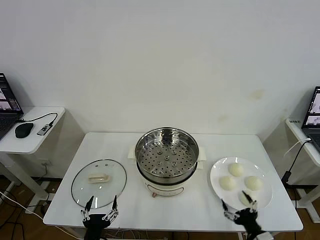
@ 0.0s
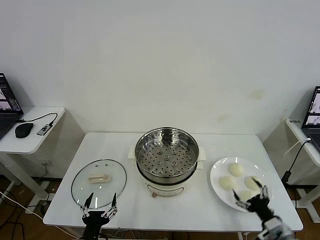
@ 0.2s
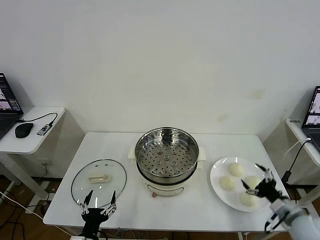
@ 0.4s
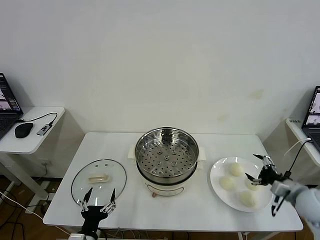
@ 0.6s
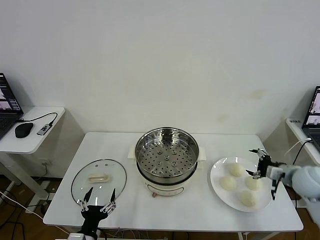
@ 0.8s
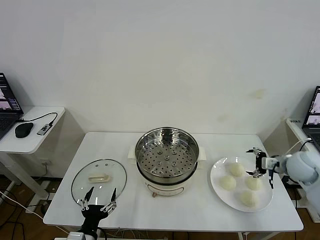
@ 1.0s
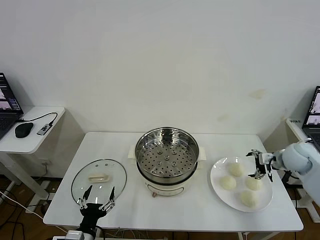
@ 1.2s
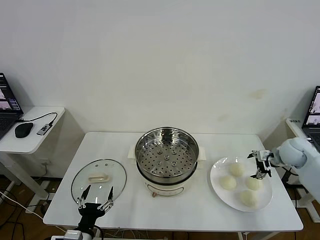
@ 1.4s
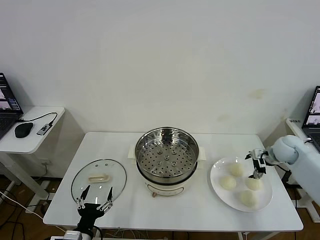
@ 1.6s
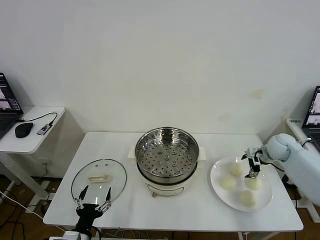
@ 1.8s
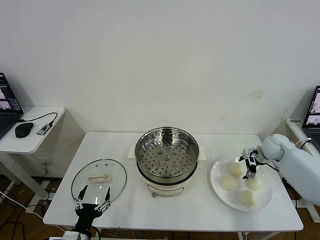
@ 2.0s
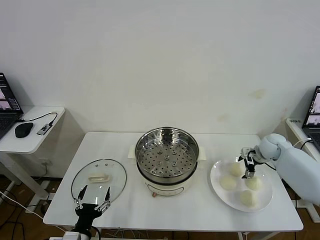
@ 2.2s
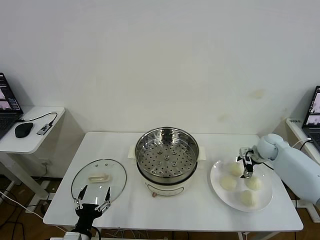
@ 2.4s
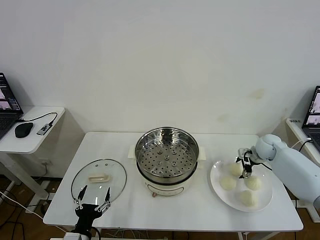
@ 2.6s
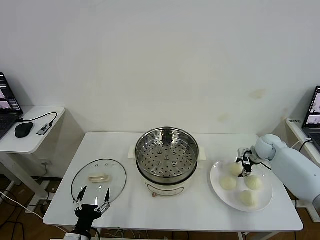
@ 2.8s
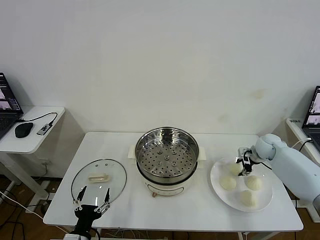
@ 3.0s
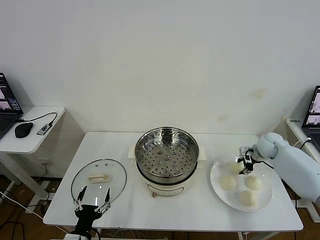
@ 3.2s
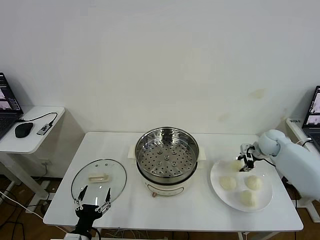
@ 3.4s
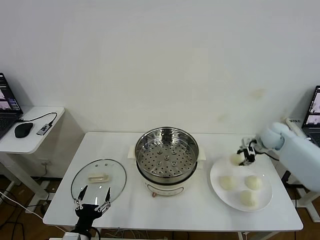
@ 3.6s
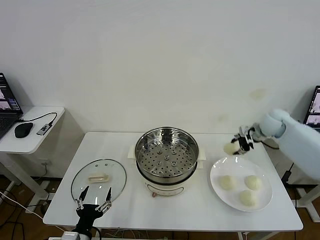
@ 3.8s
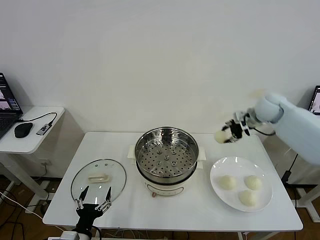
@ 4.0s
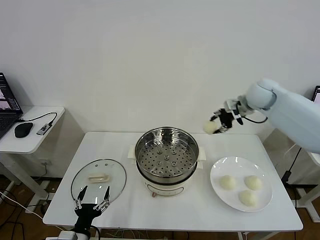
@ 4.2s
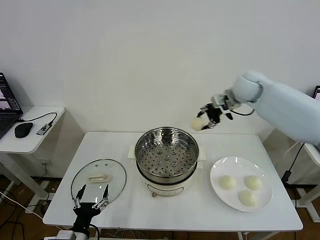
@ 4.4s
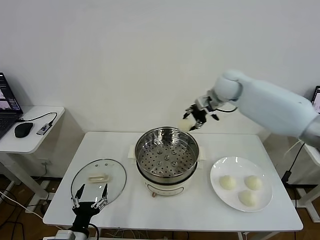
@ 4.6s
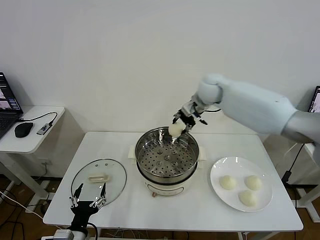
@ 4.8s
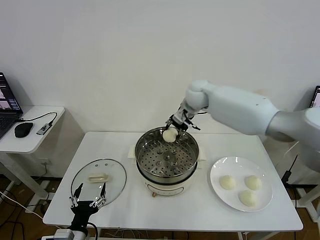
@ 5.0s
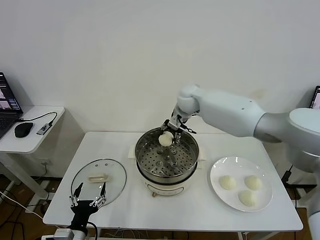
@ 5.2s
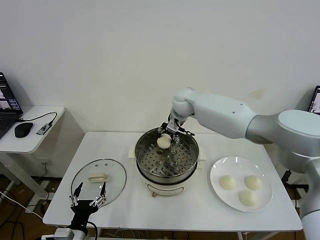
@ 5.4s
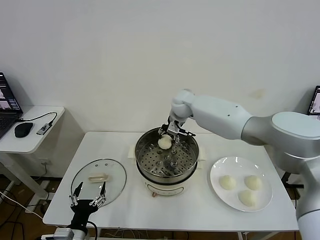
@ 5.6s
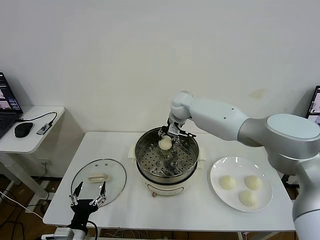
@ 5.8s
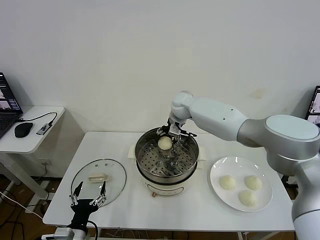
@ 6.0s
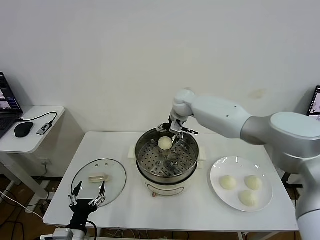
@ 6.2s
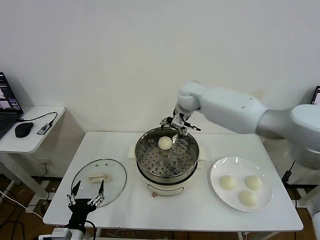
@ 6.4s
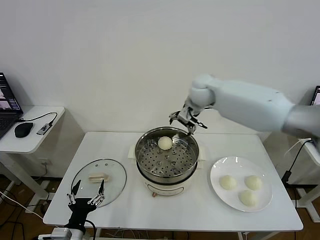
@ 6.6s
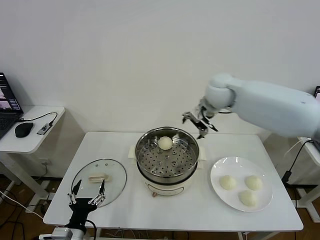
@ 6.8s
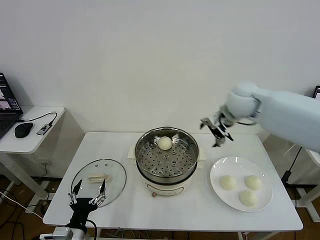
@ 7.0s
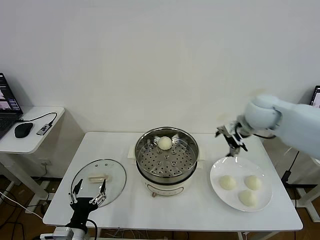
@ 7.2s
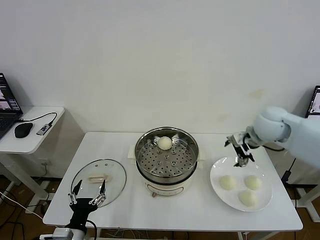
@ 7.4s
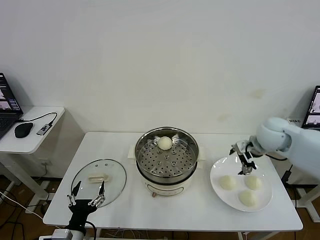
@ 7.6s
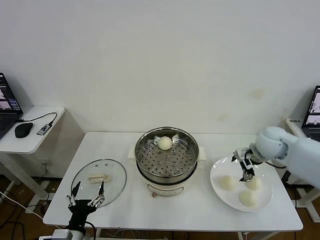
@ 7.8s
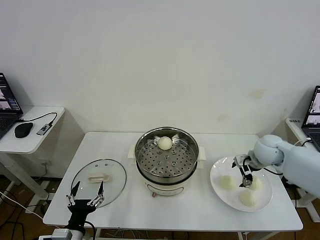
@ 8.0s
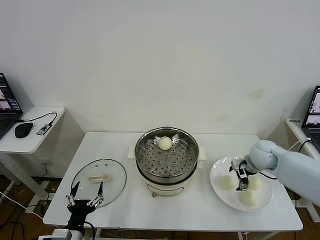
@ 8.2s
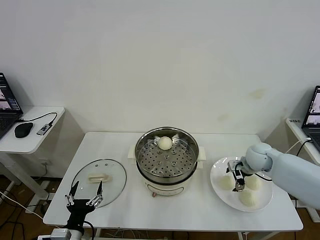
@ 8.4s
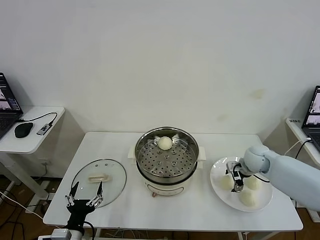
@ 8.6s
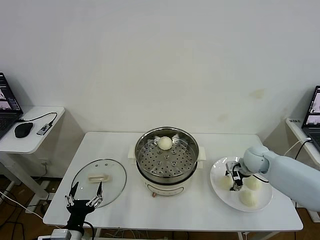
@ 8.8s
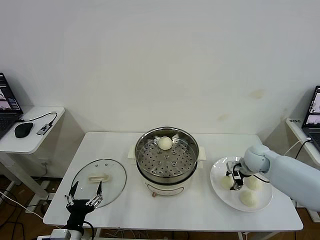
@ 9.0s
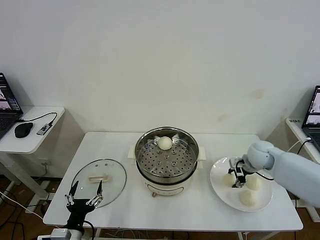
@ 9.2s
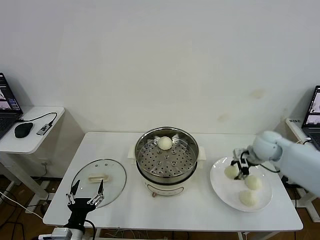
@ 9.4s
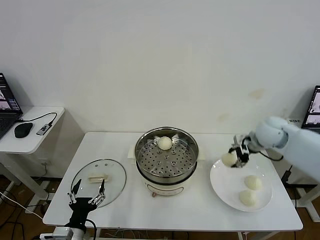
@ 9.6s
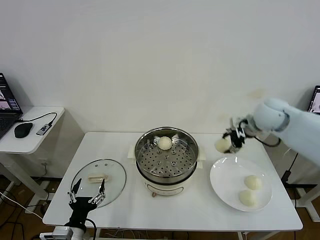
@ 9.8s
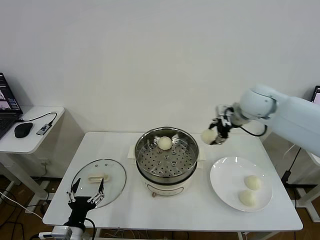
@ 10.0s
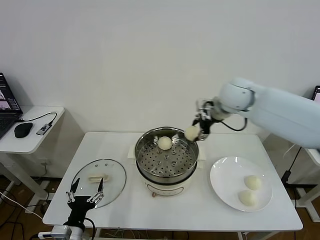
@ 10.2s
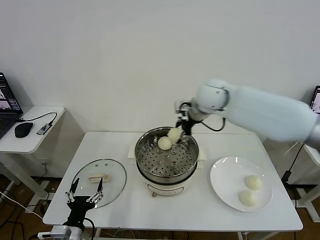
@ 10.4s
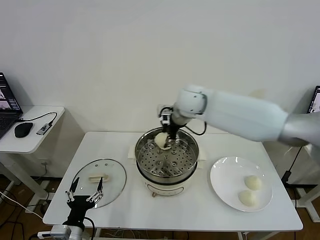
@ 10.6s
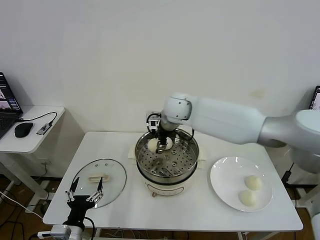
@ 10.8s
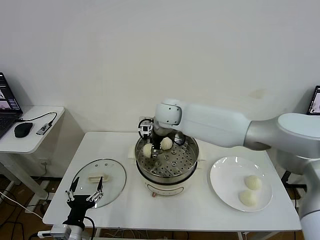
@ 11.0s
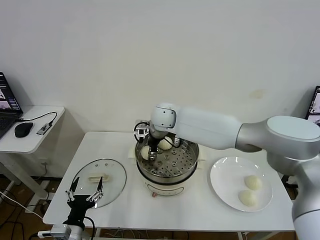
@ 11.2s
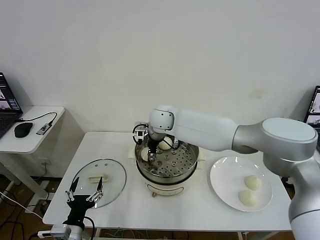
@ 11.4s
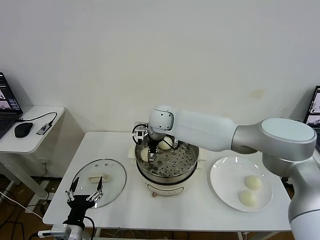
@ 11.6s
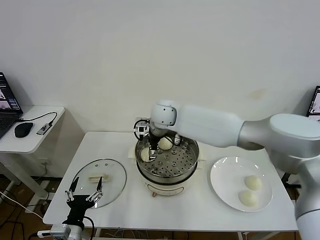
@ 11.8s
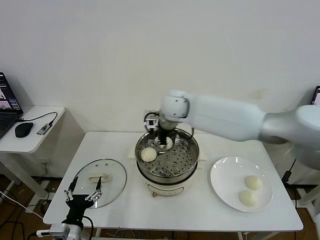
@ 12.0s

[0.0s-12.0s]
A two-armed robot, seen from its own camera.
Task of the whole recording: take steamed baozi put them in steamer then cover it.
Step, 0.0s to 3.2s: Grasp the baozi in the plate with right gripper.
Step, 3.4s to 6.0s: Place the baozi on the steamer with right gripper.
Step, 6.2s to 9.0s: Grasp the baozi in the plate with right gripper.
Step, 9.2s to 11.6s: Place the baozi on the steamer with right gripper.
1.6s to 3.0s: The right gripper ends up some 5 cm from where it was, and closes its fingers.
3.0s to 4.4s: The right gripper shifts some 30 cm upward and to the left.
4.4s to 6.0s: The right gripper is displaced to the left and downward by some 20 cm, and opens up.
6.0s to 7.6s: The right gripper moves to the right and backward, roughly 30 cm.
7.6s to 9.0s: The right gripper goes about 10 cm downward, and closes.
9.0s to 10.4s: The right gripper shifts roughly 30 cm to the left and upward.
10.4s to 12.0s: The right gripper is displaced to the left by about 5 cm, and opens its fingers.

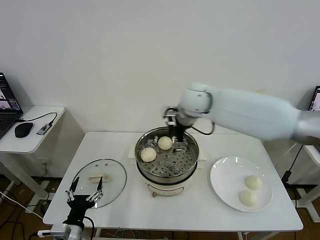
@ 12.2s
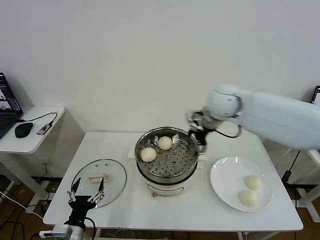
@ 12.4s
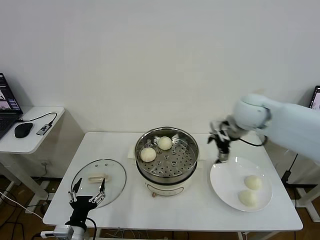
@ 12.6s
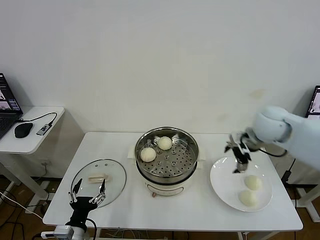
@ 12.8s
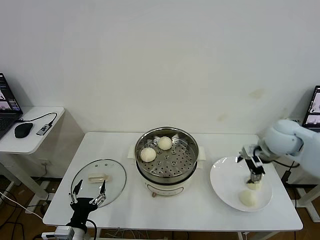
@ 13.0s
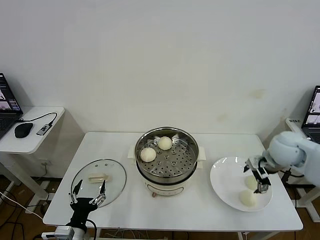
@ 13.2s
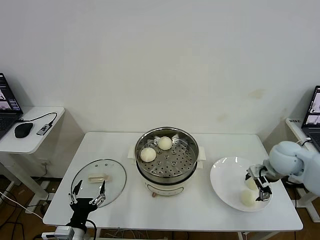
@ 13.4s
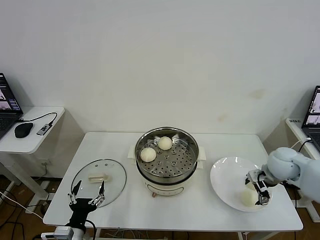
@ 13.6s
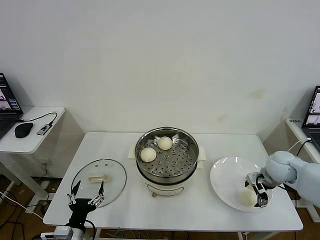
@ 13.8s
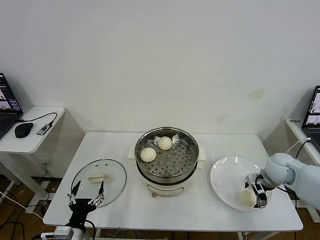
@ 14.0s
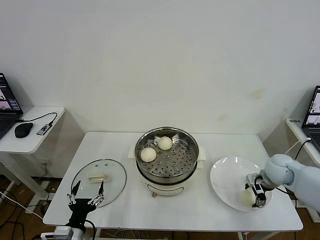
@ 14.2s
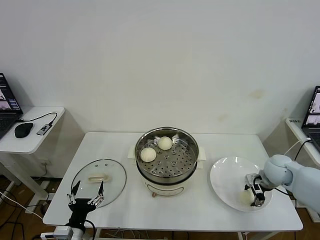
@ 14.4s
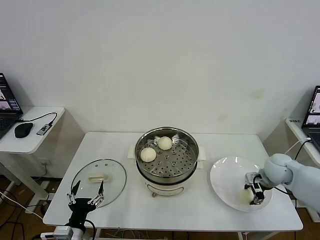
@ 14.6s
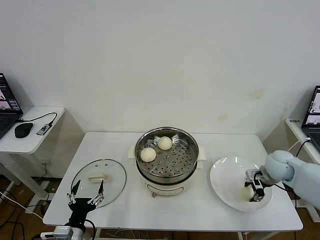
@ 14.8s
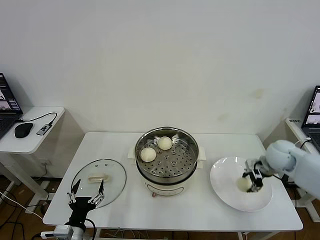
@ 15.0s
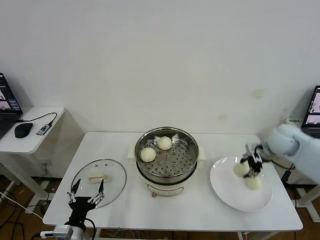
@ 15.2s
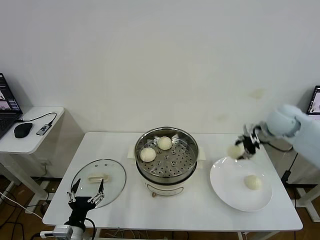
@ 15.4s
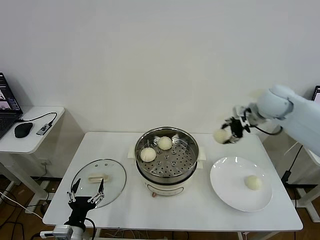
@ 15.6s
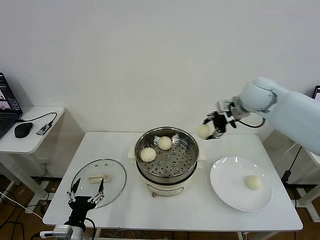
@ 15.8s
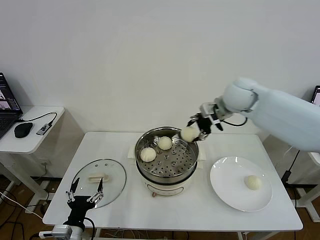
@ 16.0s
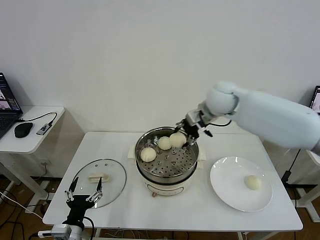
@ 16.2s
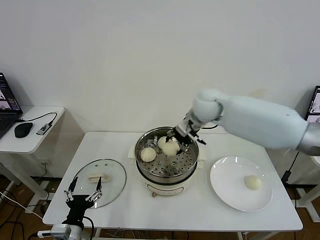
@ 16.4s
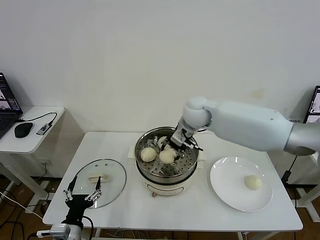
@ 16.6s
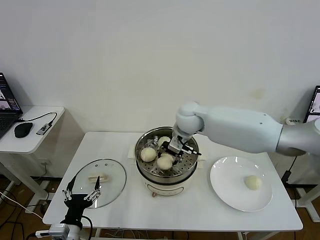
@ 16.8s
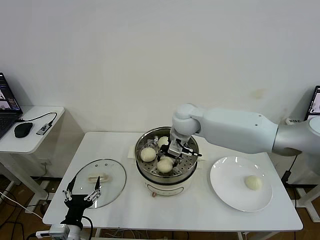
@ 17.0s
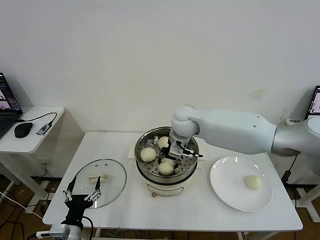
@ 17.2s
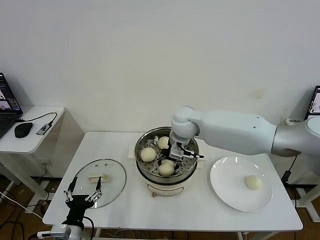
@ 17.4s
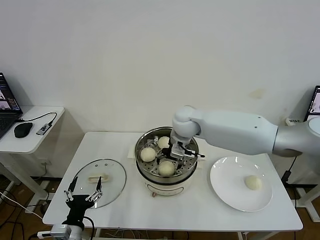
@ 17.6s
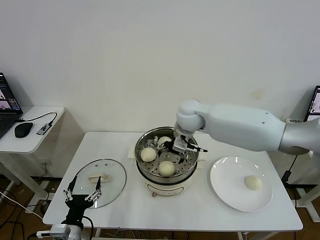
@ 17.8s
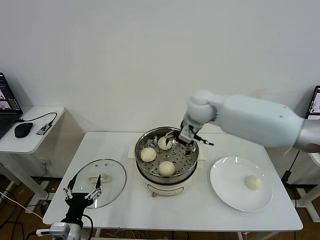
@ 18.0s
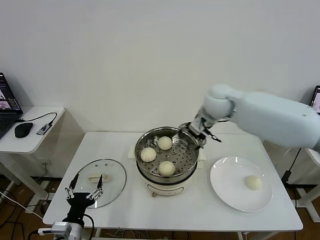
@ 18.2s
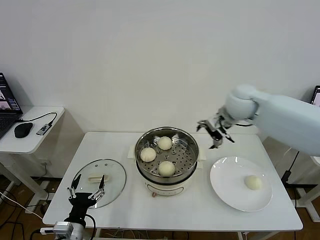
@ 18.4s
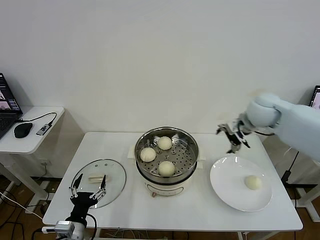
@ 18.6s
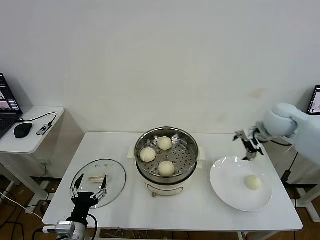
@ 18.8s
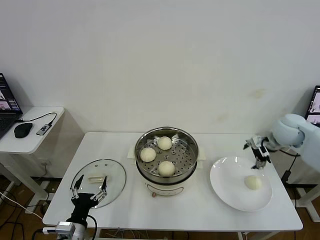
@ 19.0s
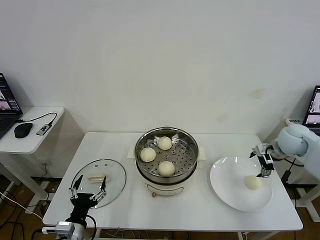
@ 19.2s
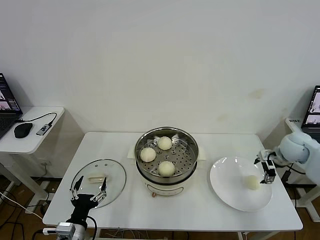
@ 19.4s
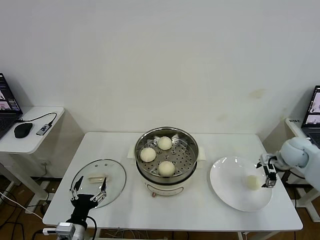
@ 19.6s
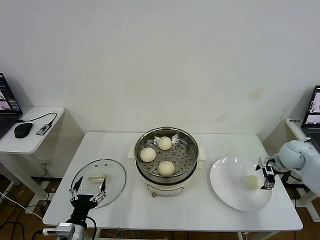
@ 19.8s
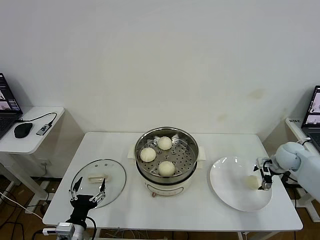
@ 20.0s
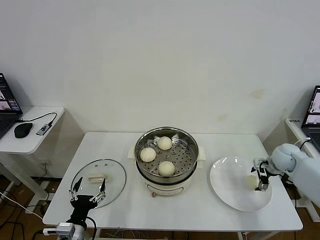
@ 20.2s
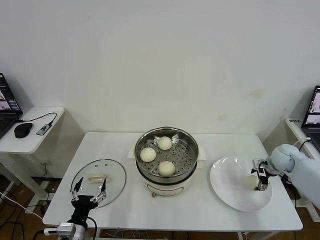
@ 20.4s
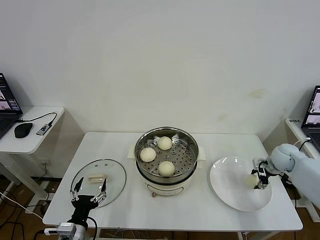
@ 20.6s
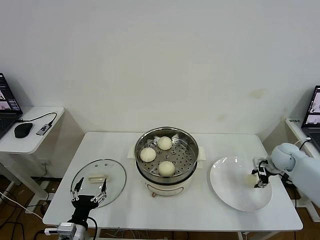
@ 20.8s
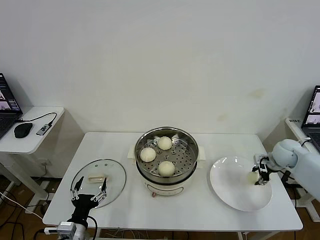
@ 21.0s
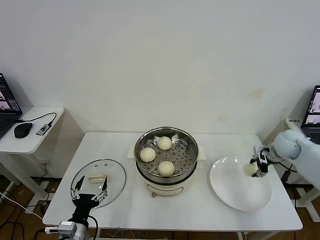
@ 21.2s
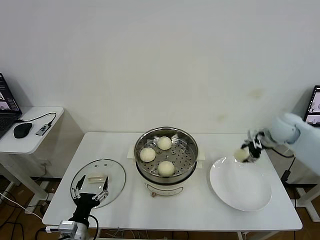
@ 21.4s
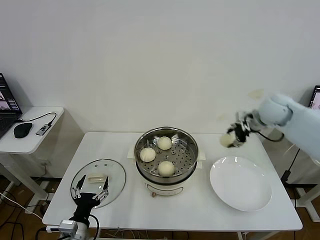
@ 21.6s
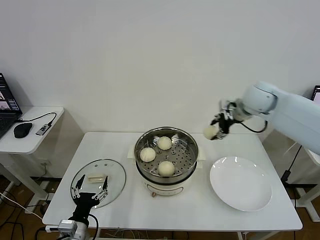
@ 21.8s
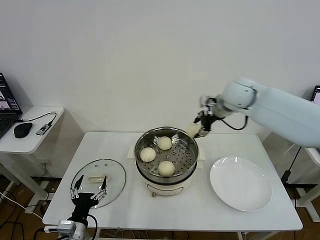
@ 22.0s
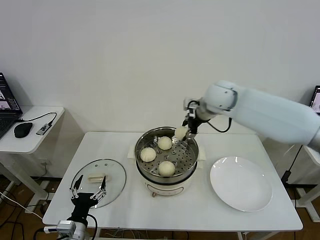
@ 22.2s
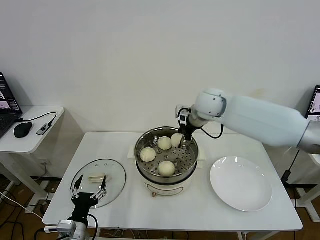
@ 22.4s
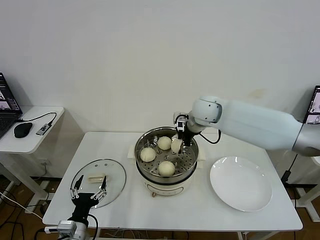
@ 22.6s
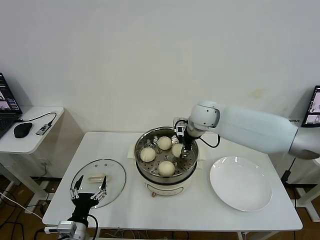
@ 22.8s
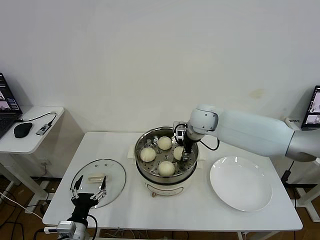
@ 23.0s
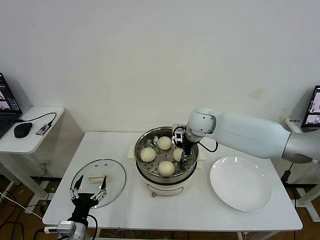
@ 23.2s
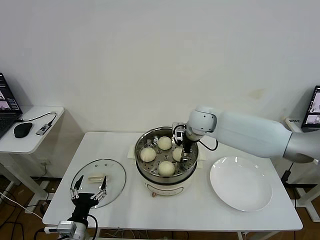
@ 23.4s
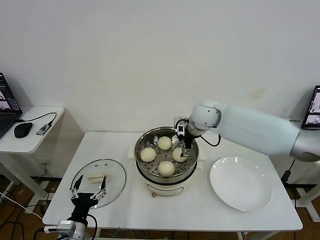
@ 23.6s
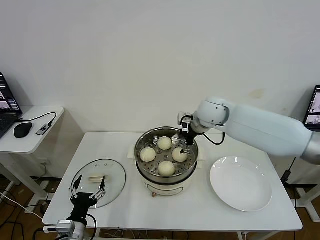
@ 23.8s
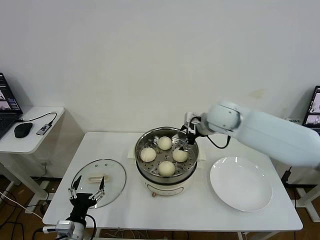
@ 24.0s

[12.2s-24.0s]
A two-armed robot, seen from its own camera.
Task of the whole recording: take steamed baozi put them in steamer then cover it.
Step, 12.2s to 14.4s: Grasp the baozi in the plate with right gripper.
Step, 14.6s to 17.6s: Place the baozi on the steamer with right gripper.
Step, 17.8s to 20.8s: Grasp the baozi in the plate with right gripper.
Step, 21.0s to 23.6s: Place the baozi on the steamer with right gripper.
12.2s to 13.6s: The right gripper heads to the right, downward and backward, covering about 35 cm.
13.6s to 15.2s: The right gripper goes about 10 cm upward and forward, and closes.
15.2s to 16.6s: The right gripper moves to the left, roughly 30 cm.
16.6s to 18.2s: The right gripper travels to the right by approximately 10 cm, and opens up.
18.2s to 19.6s: The right gripper goes roughly 30 cm to the right and downward.
19.6s to 21.0s: The right gripper closes its fingers.
21.0s to 22.6s: The right gripper is displaced to the left and upward by roughly 35 cm.
22.6s to 24.0s: The right gripper changes place by some 5 cm, and opens up.
